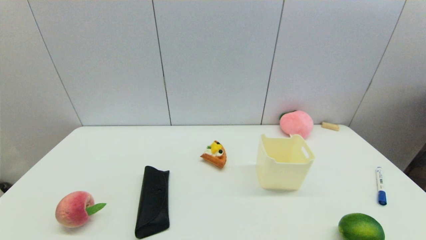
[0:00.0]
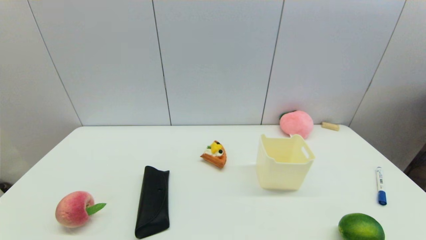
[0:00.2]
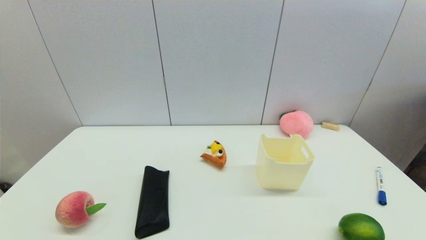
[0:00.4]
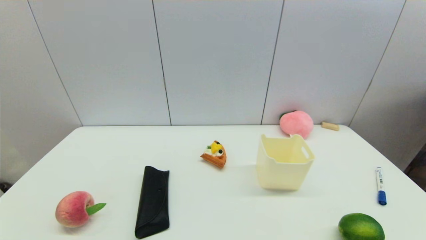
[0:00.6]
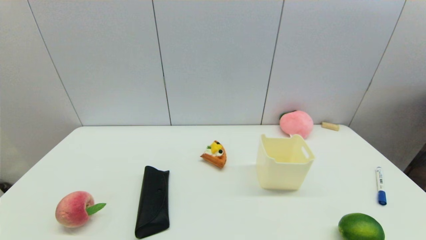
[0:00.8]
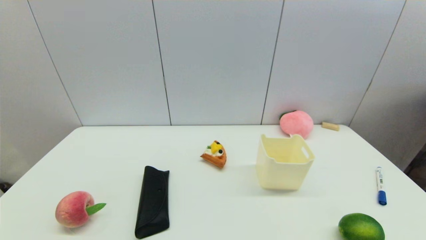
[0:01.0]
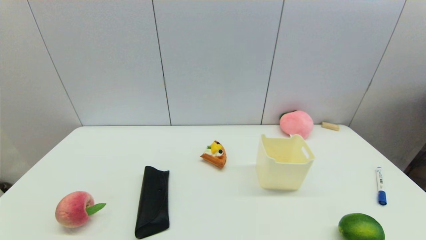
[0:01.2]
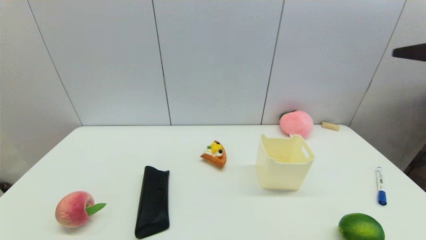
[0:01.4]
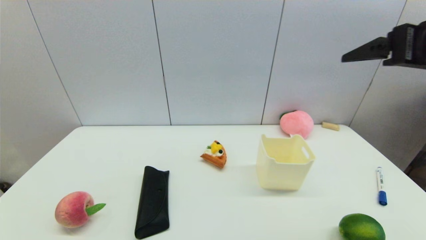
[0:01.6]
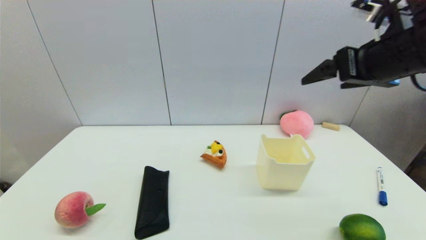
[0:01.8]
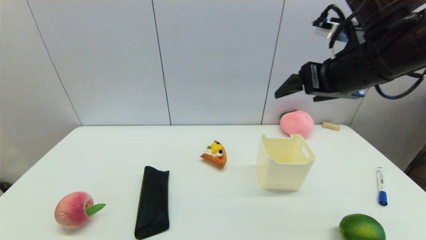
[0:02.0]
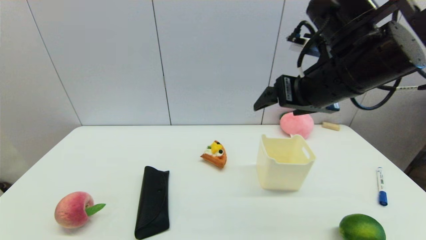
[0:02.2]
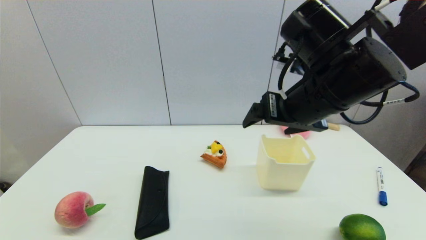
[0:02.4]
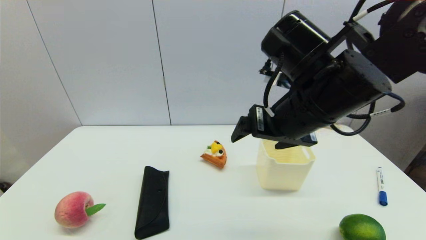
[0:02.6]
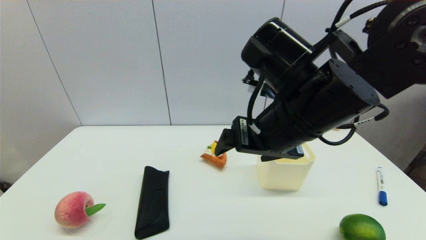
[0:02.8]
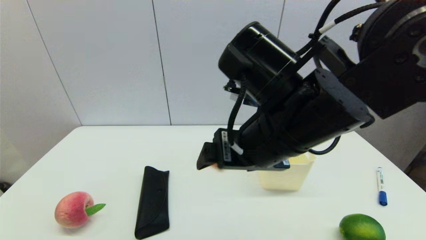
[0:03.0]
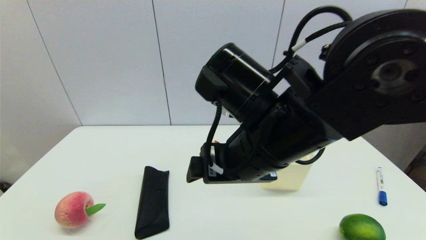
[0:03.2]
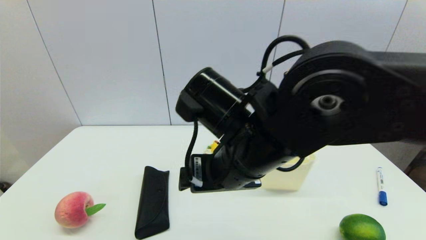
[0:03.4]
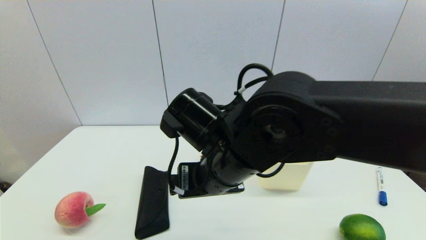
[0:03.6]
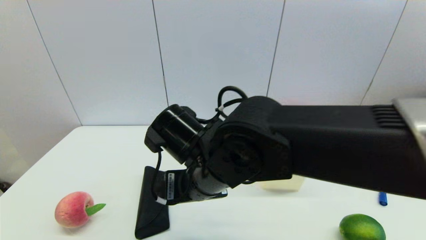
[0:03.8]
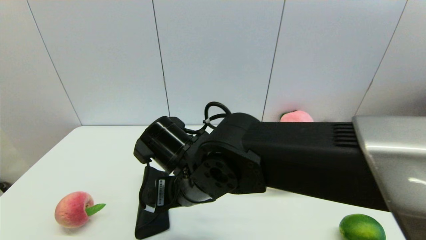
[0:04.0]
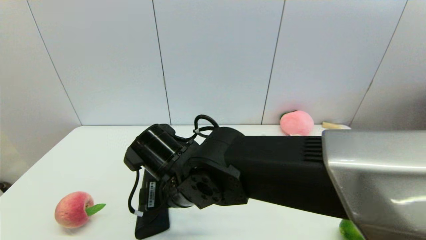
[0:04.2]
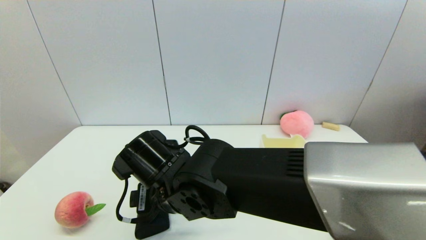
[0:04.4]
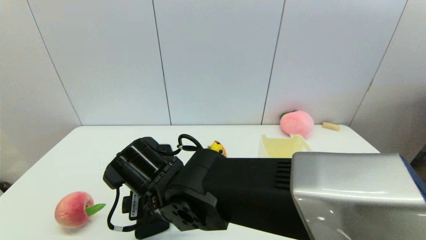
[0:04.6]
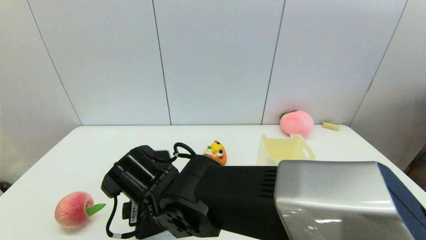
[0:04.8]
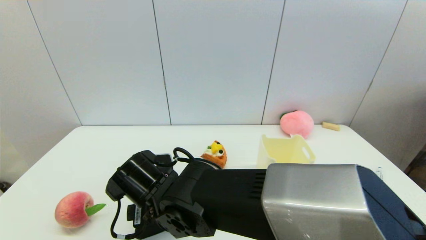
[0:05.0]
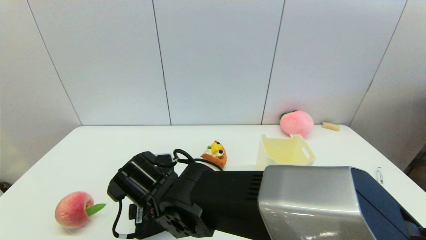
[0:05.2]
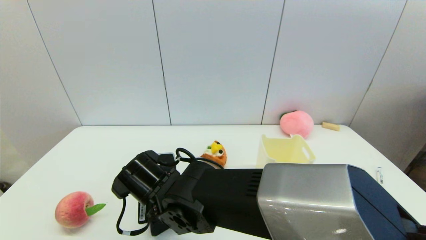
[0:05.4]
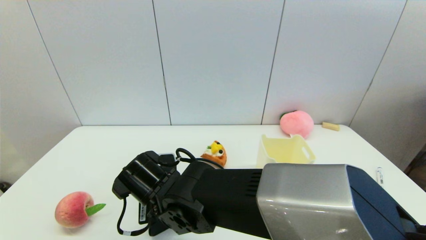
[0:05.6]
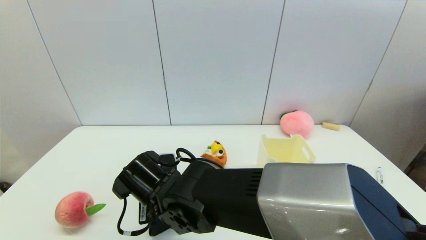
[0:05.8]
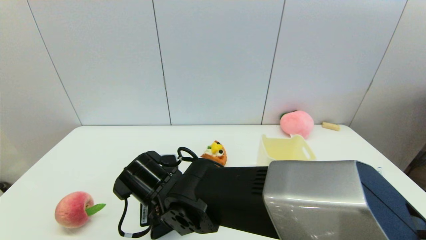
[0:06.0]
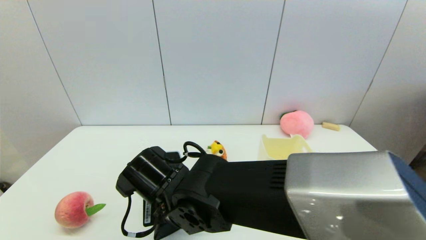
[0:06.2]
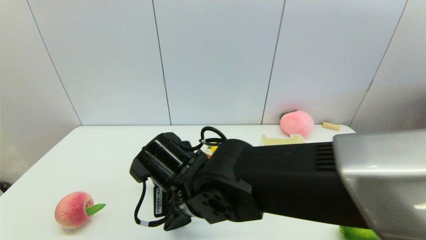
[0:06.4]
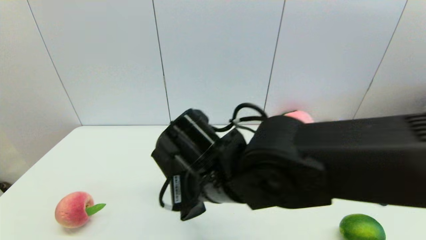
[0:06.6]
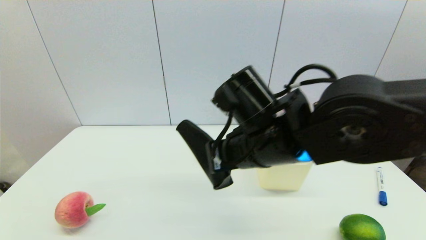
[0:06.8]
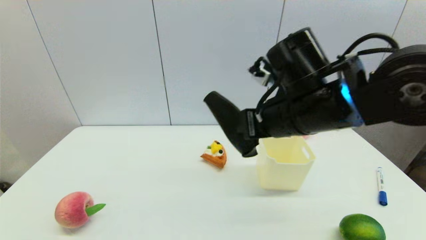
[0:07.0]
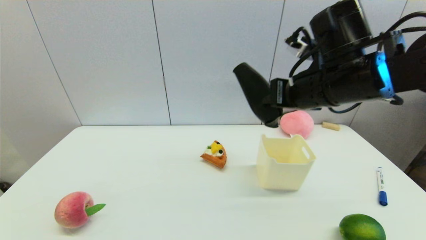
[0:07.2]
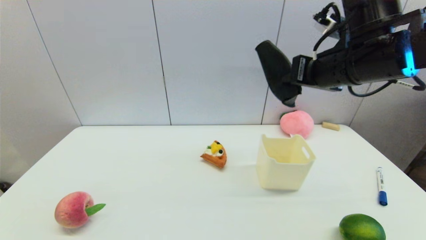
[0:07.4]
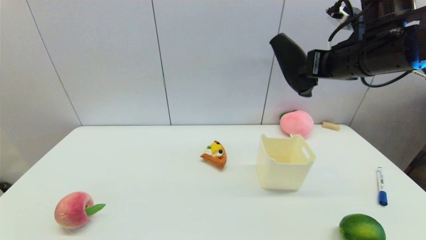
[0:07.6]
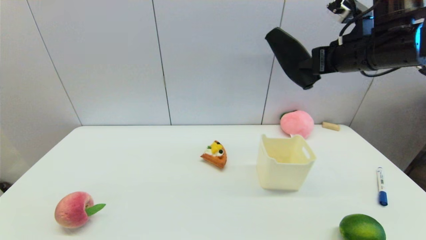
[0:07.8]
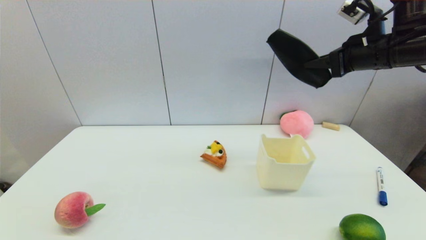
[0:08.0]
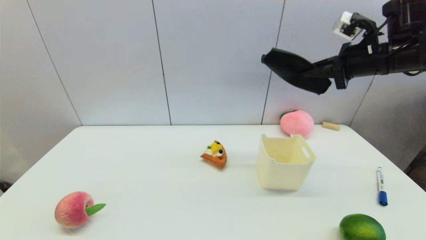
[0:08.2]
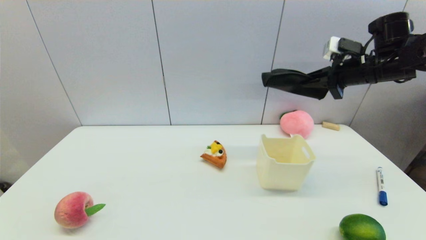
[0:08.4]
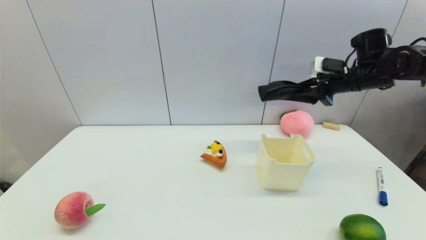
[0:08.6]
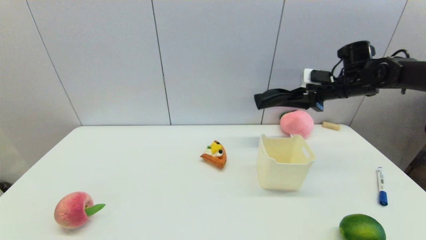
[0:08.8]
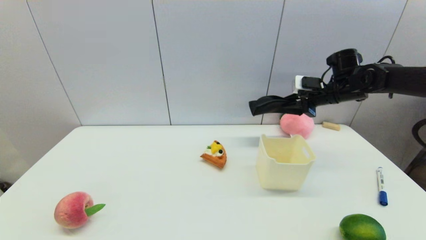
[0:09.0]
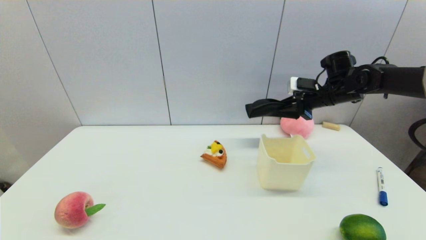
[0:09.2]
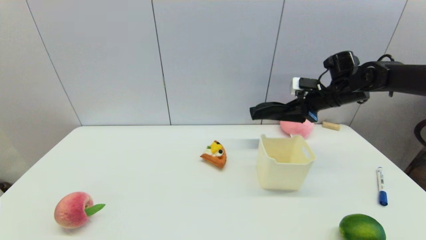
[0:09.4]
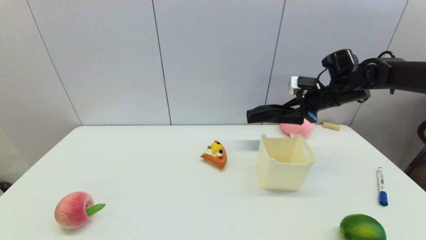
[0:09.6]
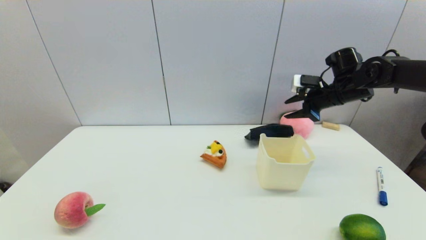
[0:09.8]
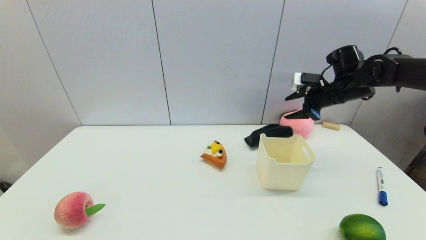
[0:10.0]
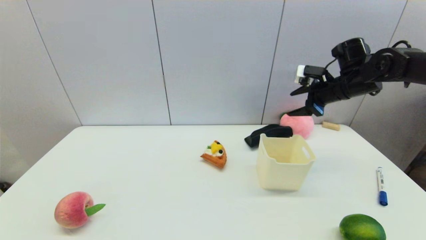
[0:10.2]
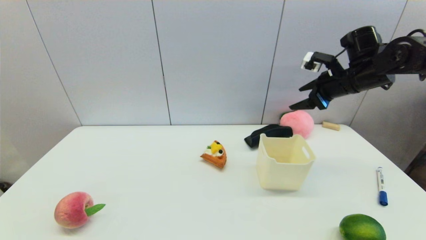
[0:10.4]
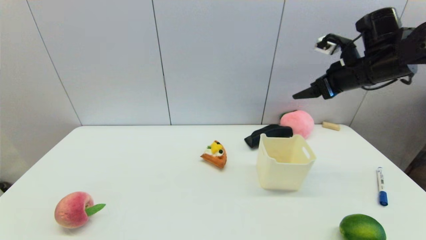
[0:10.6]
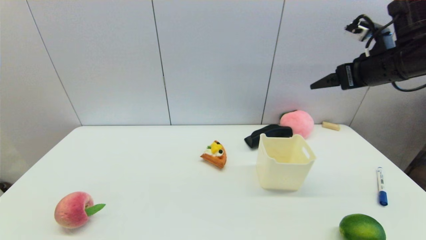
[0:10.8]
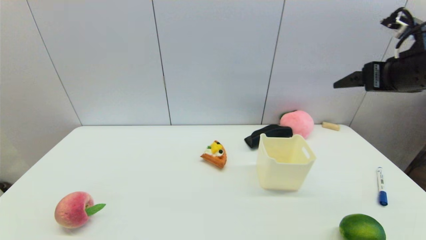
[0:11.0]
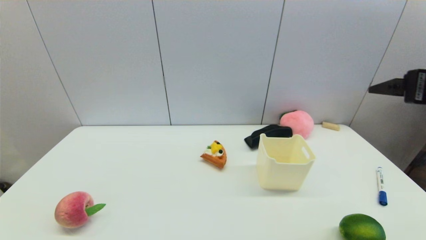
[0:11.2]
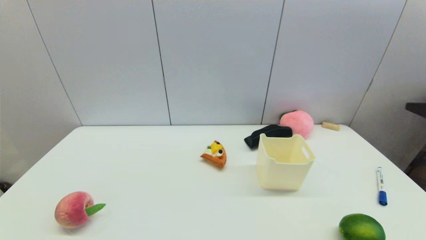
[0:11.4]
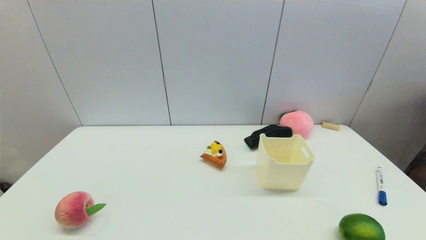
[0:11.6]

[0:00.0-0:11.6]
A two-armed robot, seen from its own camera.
Step, 1.4 to 6.0 s: Grasp the glasses case with right gripper.
Step, 6.2 to 9.6 s: Place the glasses case on the table with right gripper.
1.4 to 2.8 s: The right gripper heads to the left, covering roughly 20 cm.
2.8 to 4.4 s: The right gripper heads to the left and downward, covering some 20 cm.
4.4 to 5.8 s: The right gripper closes.
5.8 to 7.2 s: The right gripper is displaced to the right and upward by about 30 cm, and closes.
7.2 to 8.8 s: The right gripper shifts approximately 25 cm forward, to the right and downward.
8.8 to 10.2 s: The right gripper opens up.
10.2 to 11.6 s: The right gripper heads backward, covering about 35 cm.

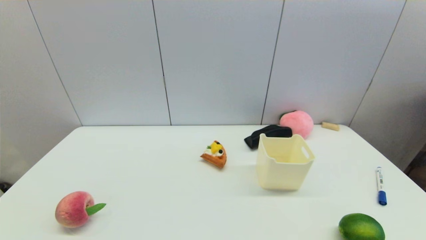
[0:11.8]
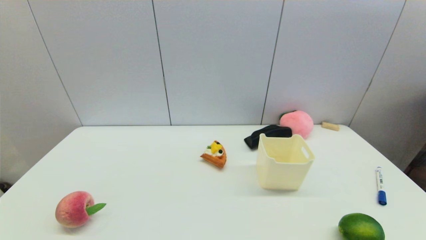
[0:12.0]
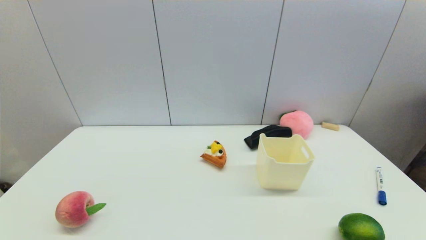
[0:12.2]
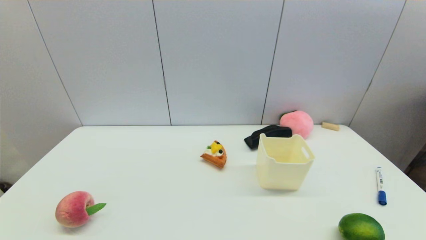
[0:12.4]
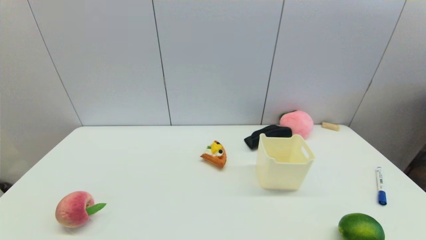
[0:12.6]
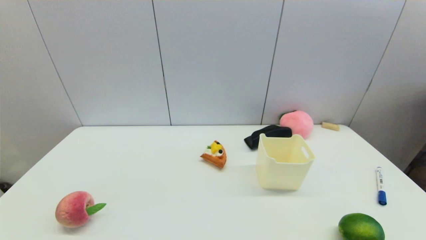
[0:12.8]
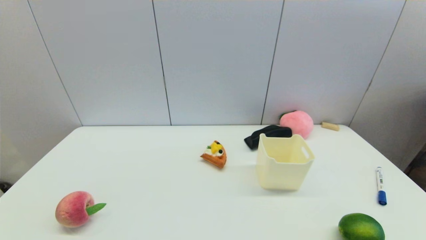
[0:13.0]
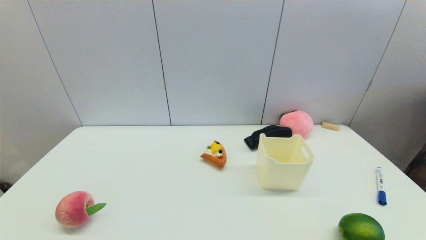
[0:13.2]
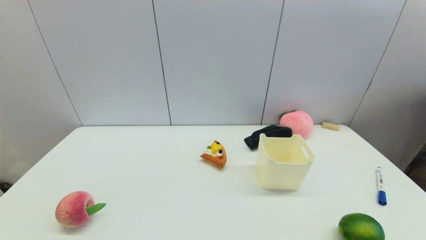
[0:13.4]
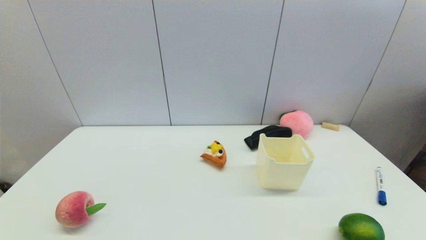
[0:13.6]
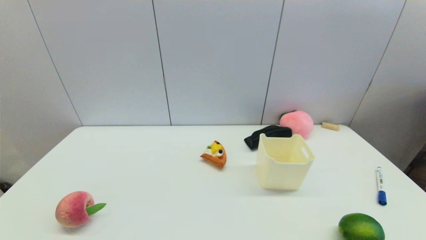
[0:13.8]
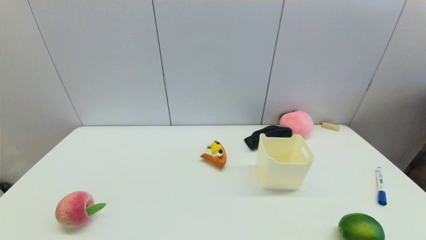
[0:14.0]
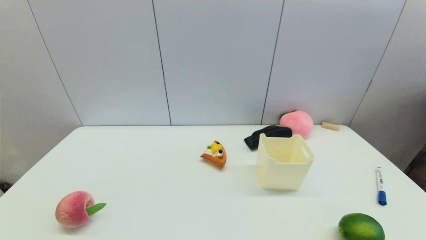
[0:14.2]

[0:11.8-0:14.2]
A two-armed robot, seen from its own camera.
13.0 to 14.2 s: Neither gripper changes place.

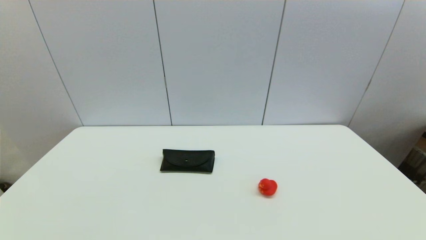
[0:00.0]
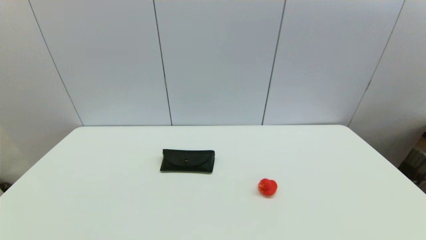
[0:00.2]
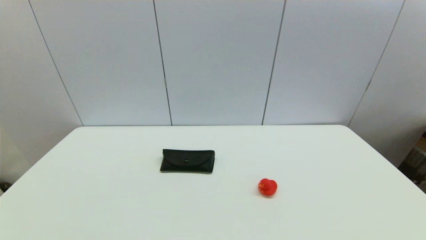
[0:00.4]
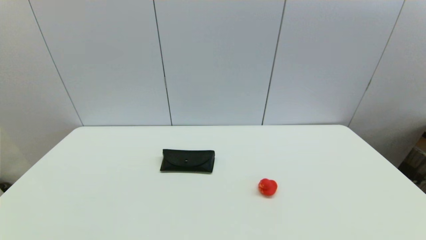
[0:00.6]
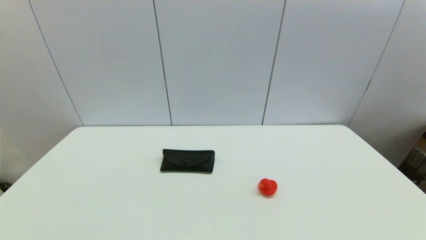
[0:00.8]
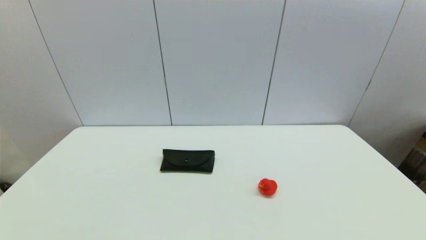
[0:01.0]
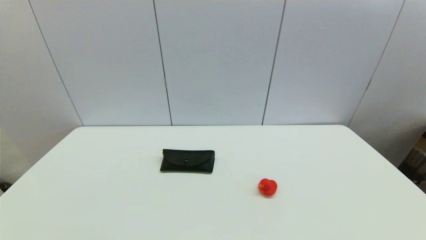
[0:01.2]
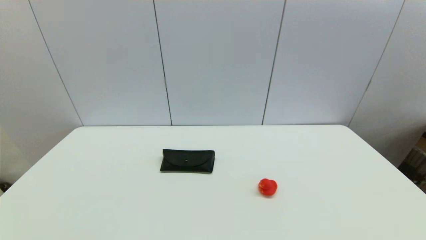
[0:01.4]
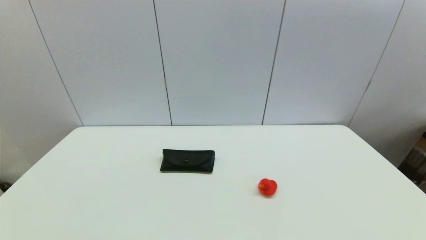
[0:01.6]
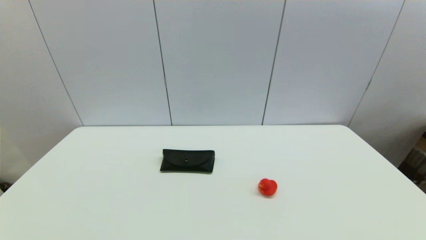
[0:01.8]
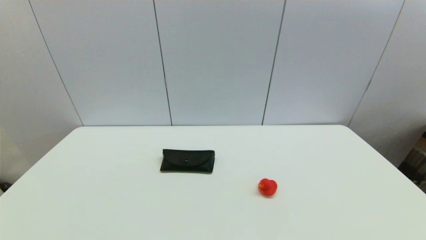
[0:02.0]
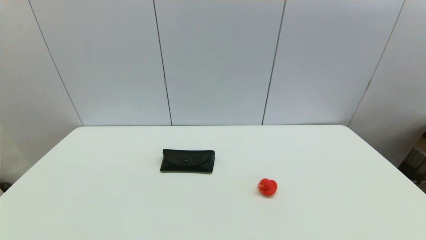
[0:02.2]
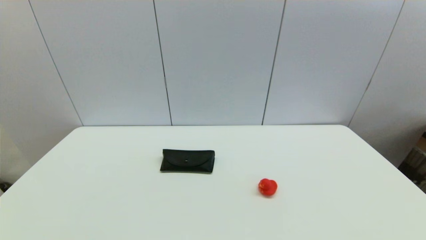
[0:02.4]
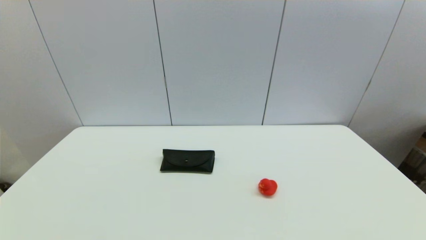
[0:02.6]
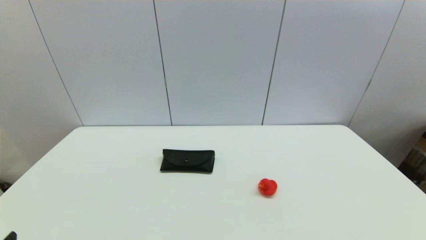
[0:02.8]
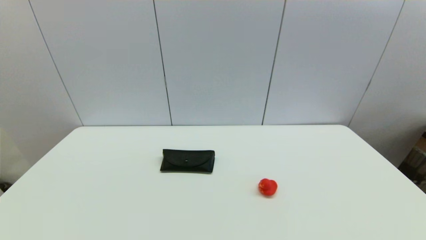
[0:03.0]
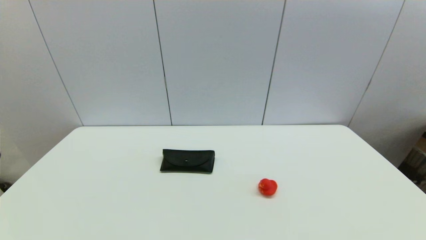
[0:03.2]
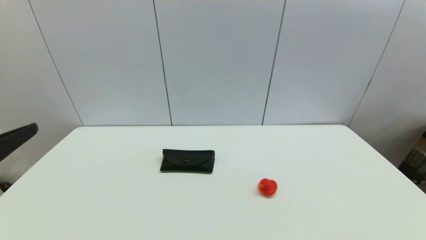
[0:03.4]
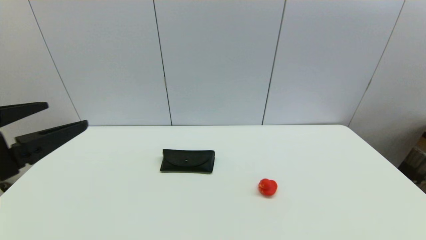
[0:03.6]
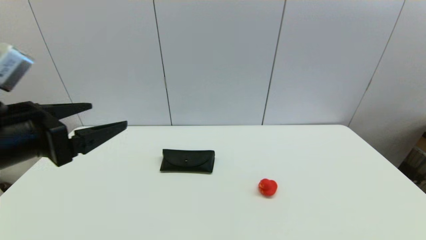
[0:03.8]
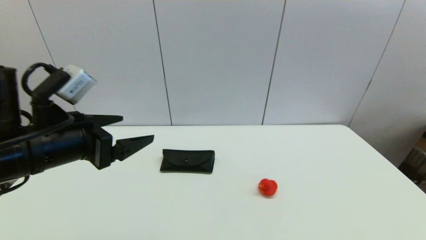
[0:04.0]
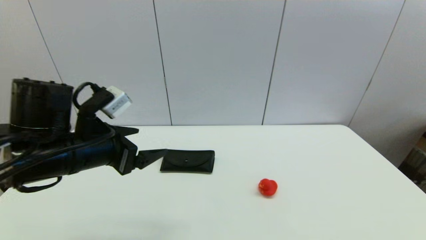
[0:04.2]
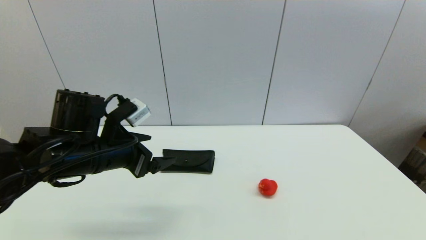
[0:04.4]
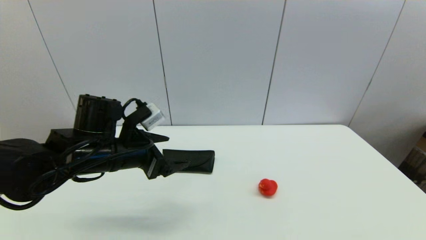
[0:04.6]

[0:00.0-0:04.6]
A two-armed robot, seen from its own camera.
0.0 to 1.6 s: Neither gripper changes place.
3.0 to 4.6 s: The left gripper travels forward and to the right by some 30 cm.
